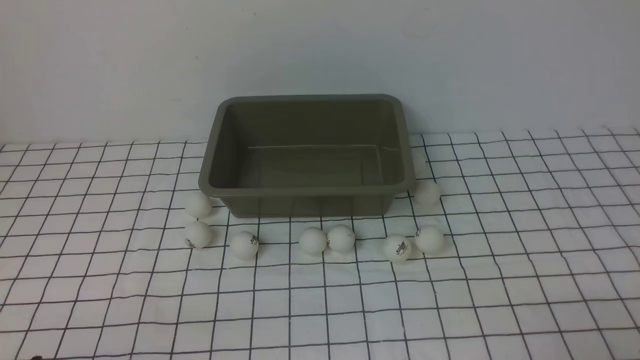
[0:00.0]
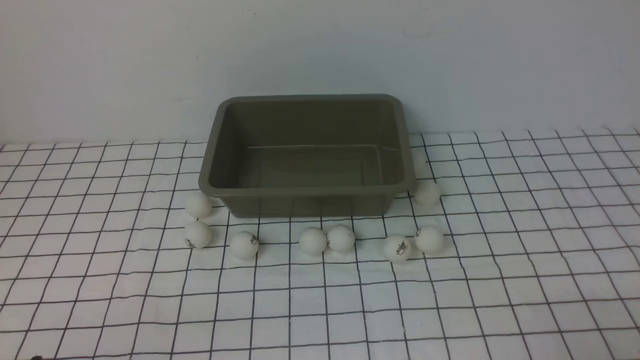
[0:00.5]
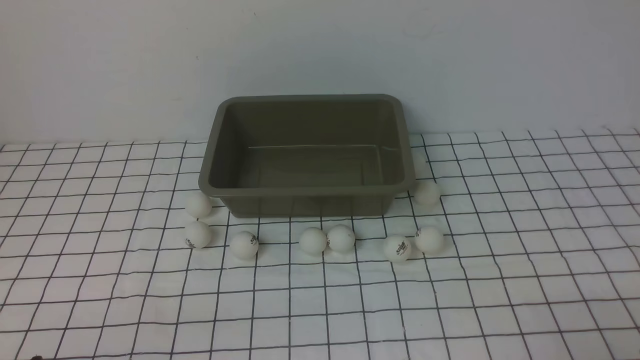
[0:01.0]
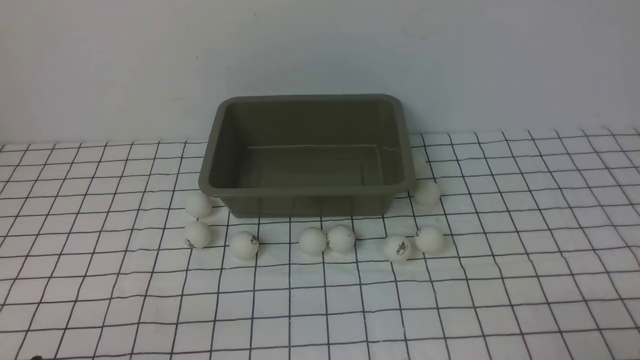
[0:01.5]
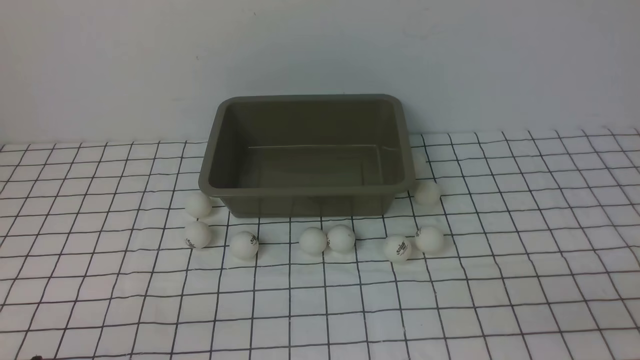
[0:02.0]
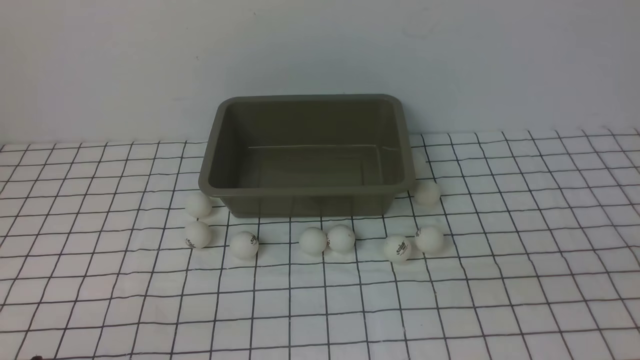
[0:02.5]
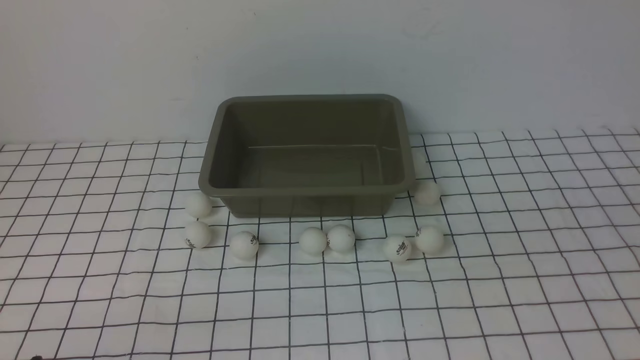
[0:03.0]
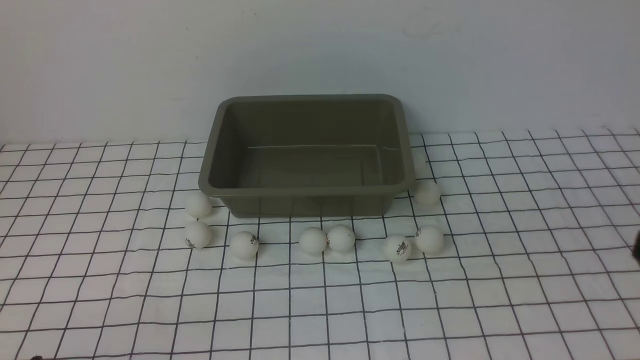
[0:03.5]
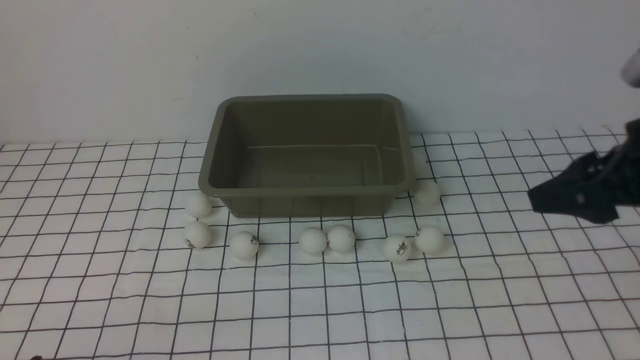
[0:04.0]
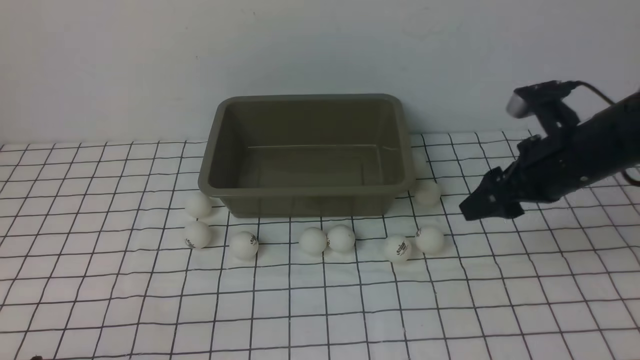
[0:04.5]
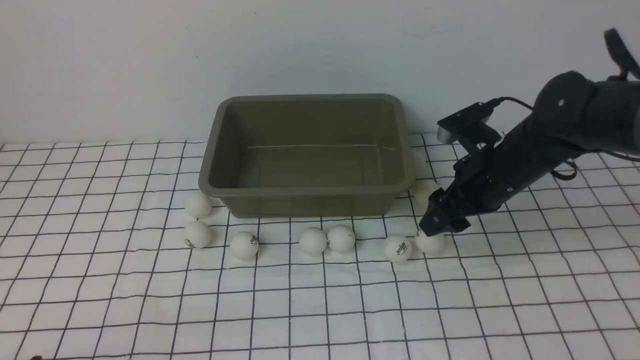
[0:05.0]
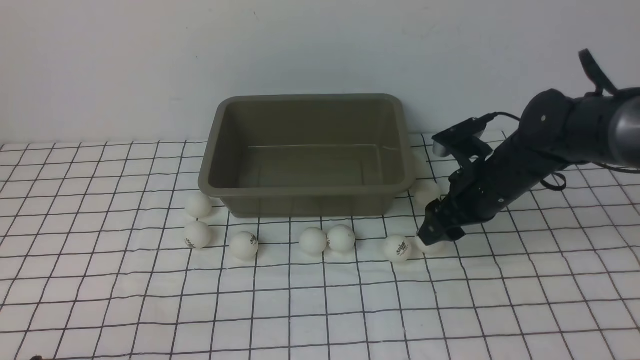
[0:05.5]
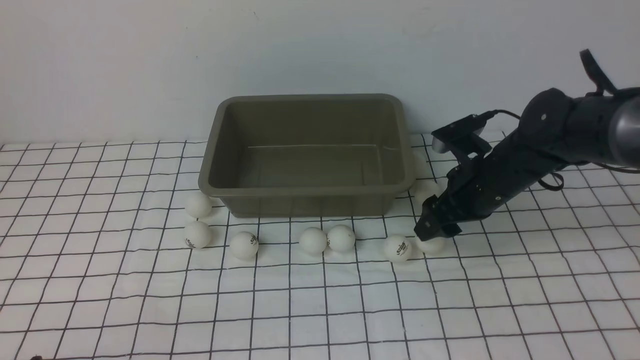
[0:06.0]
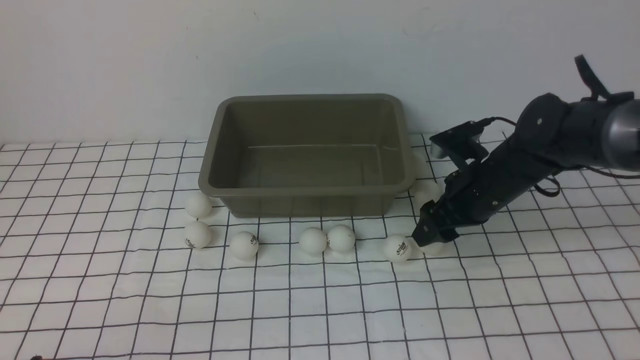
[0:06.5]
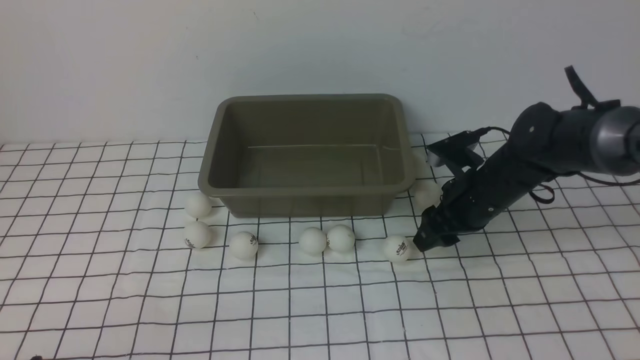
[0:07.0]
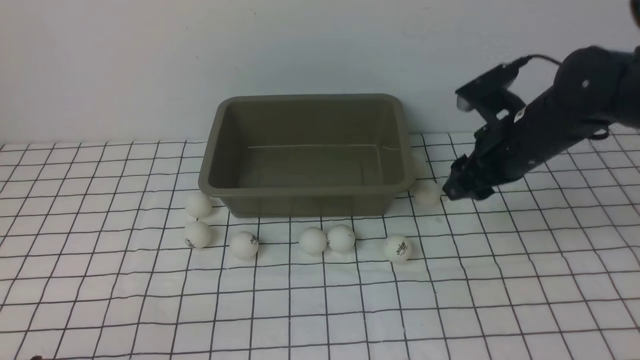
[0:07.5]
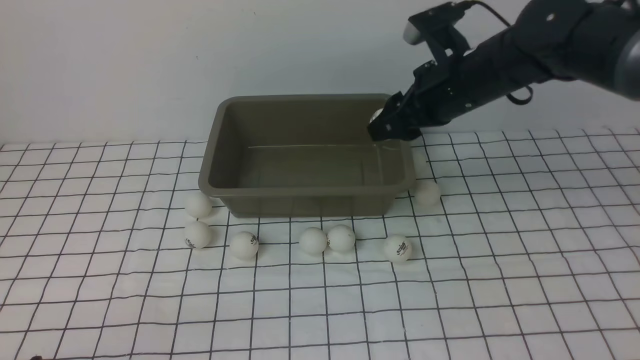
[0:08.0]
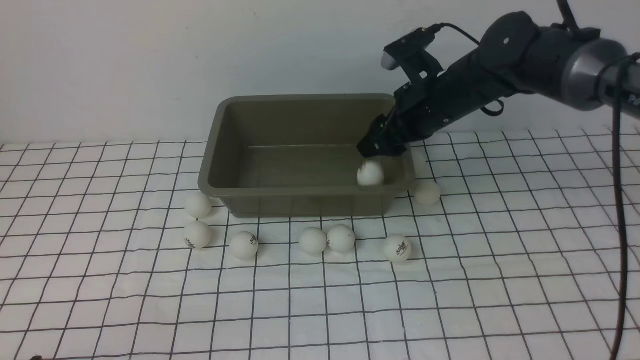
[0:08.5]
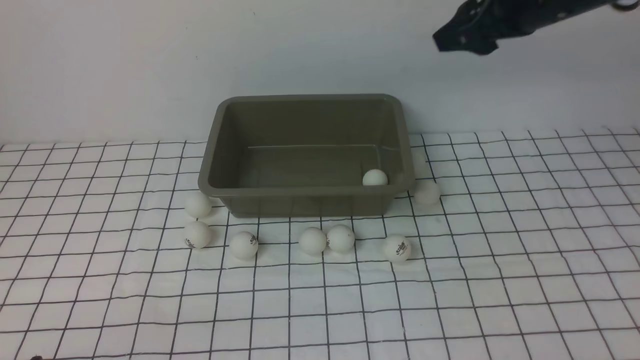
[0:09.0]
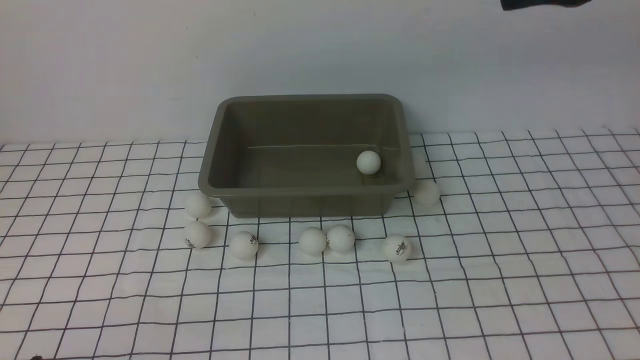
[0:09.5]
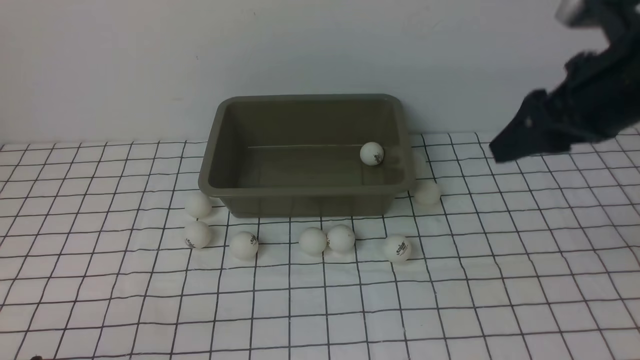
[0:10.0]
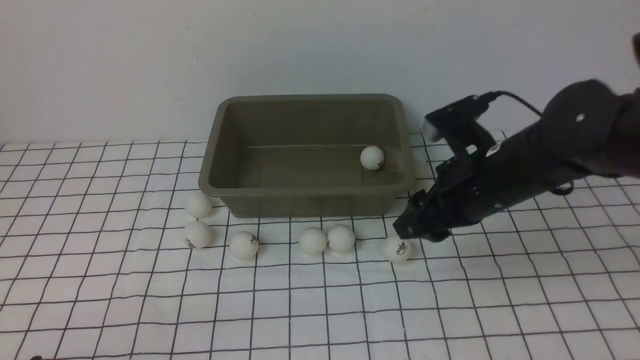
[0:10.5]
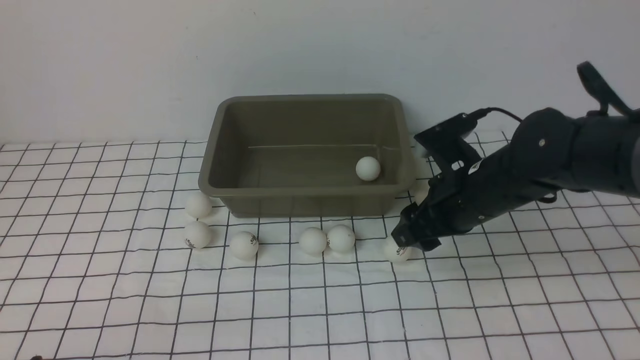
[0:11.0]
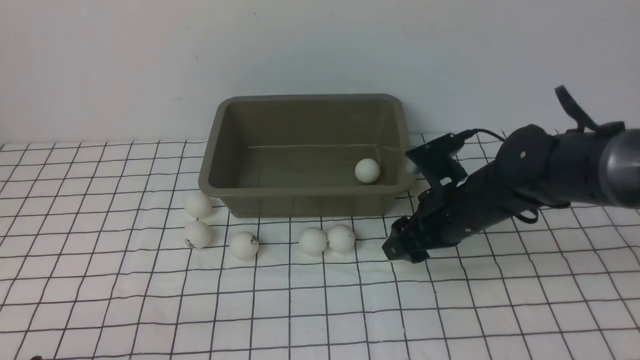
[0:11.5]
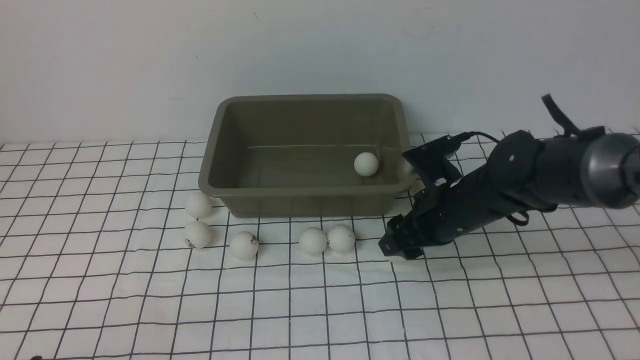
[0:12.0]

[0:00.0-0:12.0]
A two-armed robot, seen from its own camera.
Step, 0:00.0 to 0:07.0: use the right arm to clamp the table tennis ball closest to it.
Step, 0:08.0 to 0:08.5: use the right arm to put the table tennis ball into the box.
0:02.0 to 0:04.0: The right gripper moves forward and upward, roughly 20 cm.
0:04.0 to 0:06.0: The right gripper is displaced downward, forward and to the left by about 20 cm.
0:06.0 to 0:08.0: The right gripper moves upward, about 10 cm, and closes.
0:08.0 to 0:10.0: The right gripper heads backward and to the right, covering some 15 cm, moves approximately 15 cm upward and comes back, and opens, then closes again.
0:10.0 to 0:12.0: The right gripper shifts about 20 cm downward and to the left, and opens up.

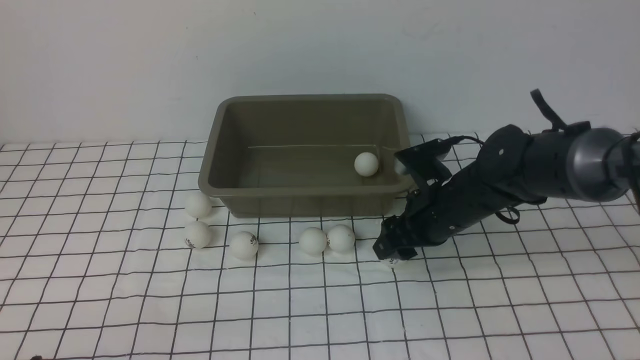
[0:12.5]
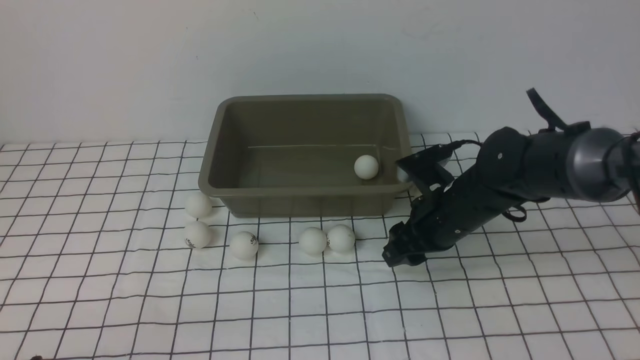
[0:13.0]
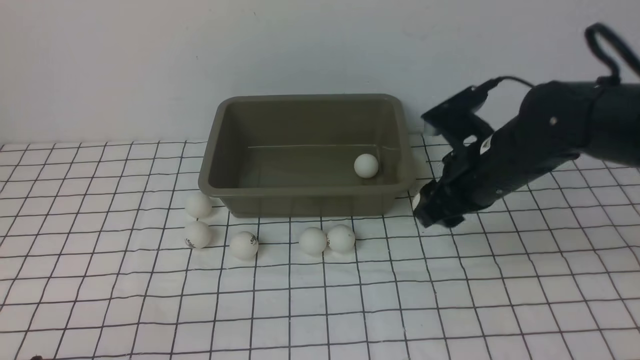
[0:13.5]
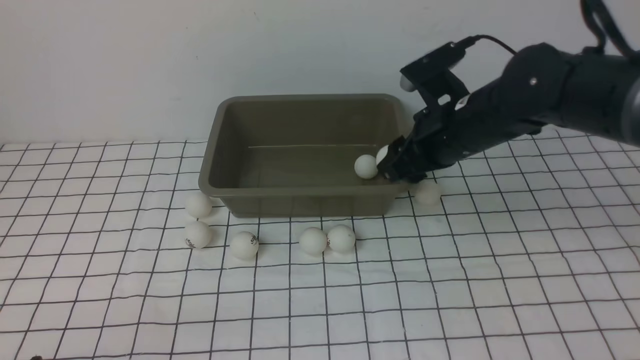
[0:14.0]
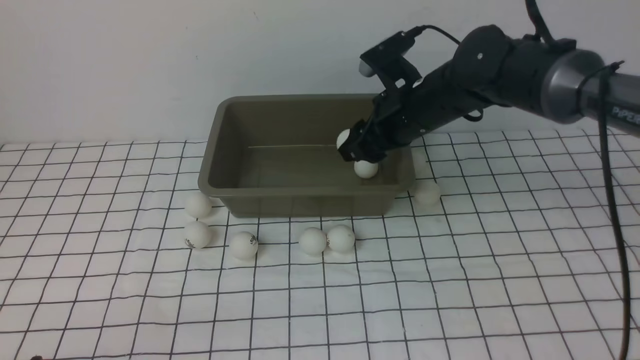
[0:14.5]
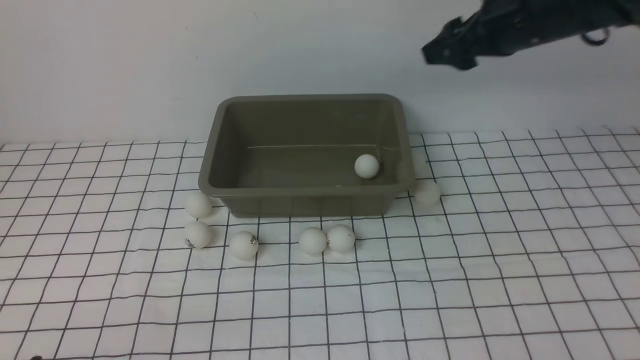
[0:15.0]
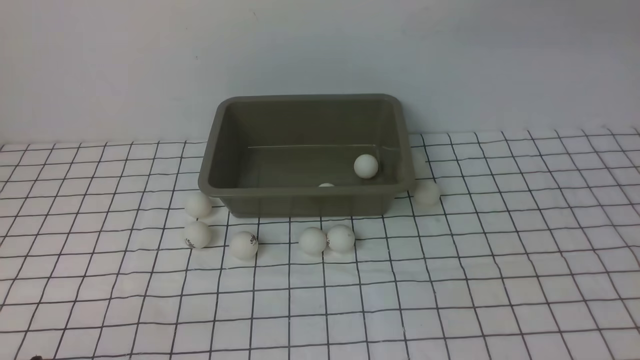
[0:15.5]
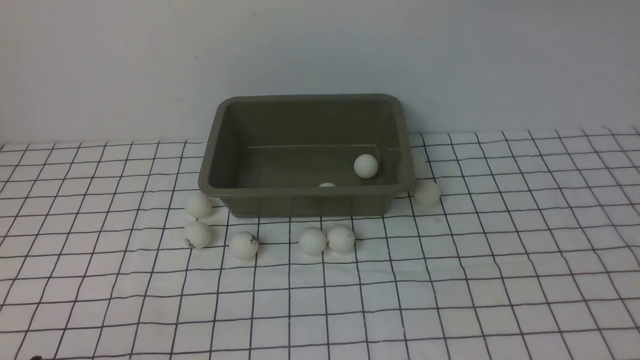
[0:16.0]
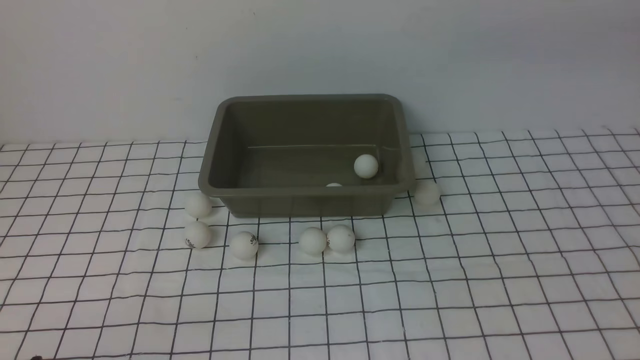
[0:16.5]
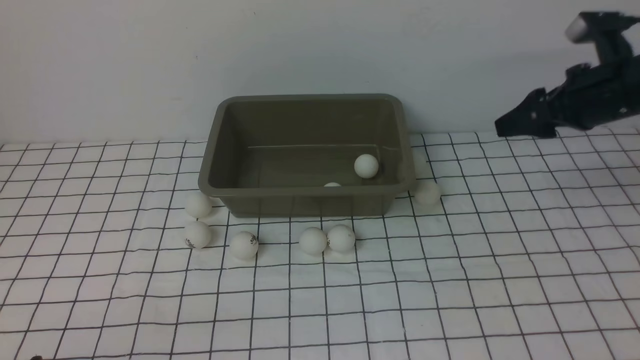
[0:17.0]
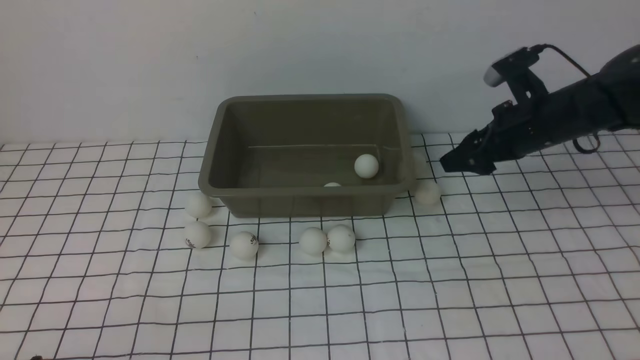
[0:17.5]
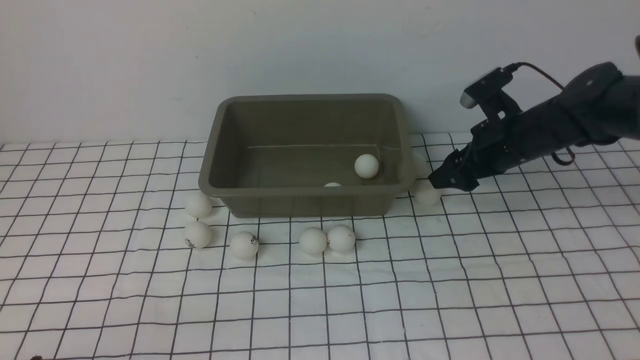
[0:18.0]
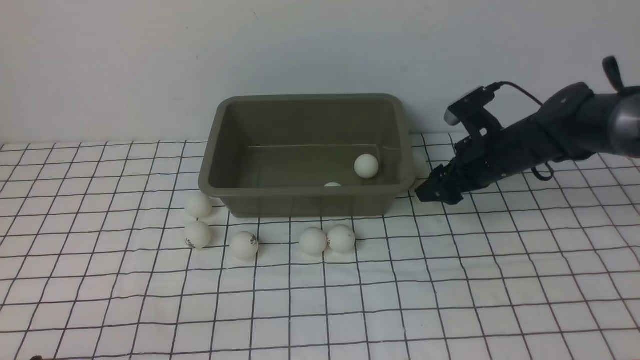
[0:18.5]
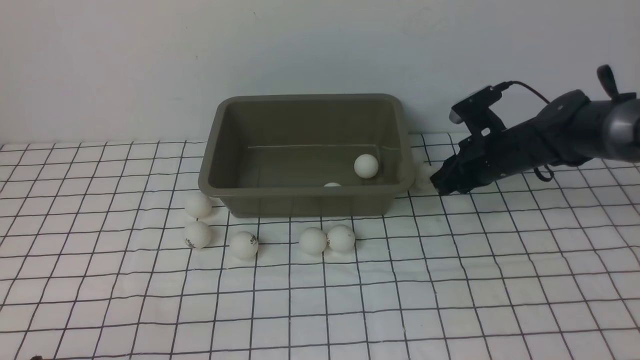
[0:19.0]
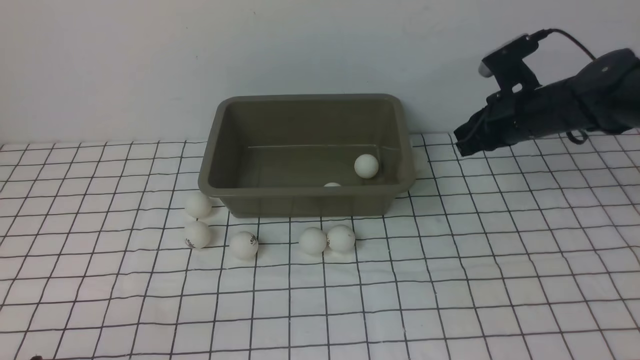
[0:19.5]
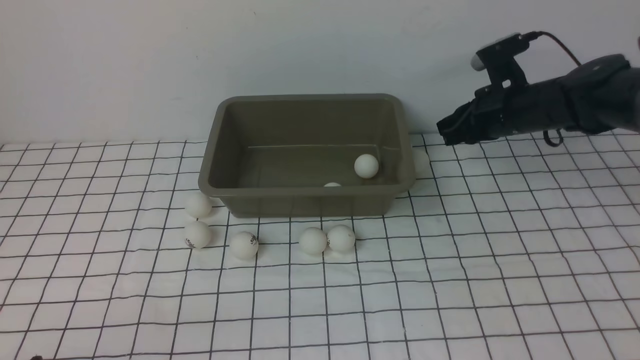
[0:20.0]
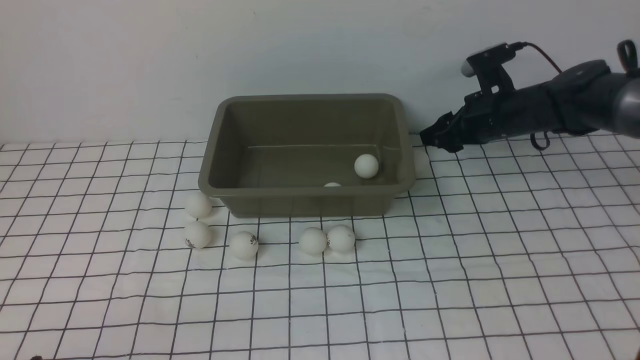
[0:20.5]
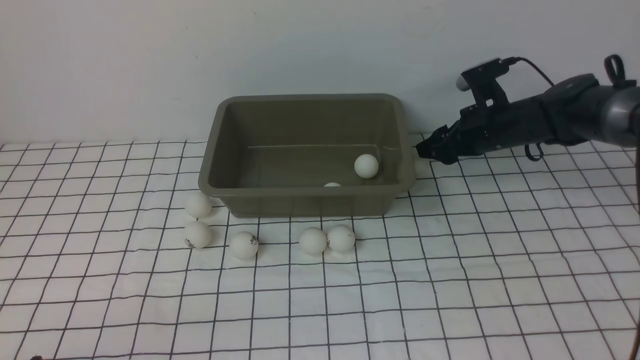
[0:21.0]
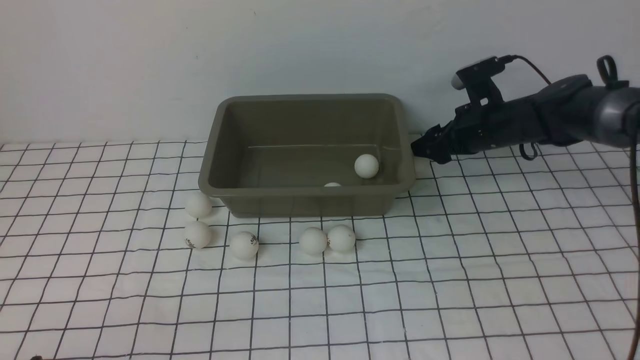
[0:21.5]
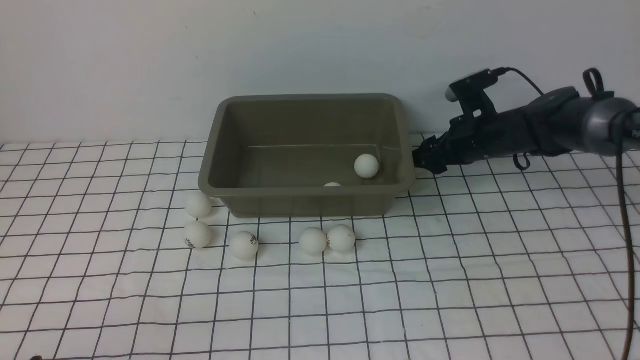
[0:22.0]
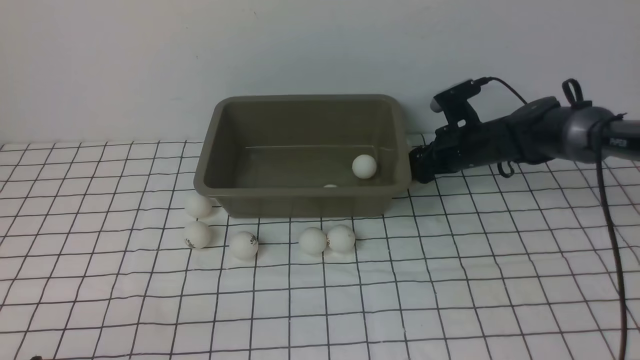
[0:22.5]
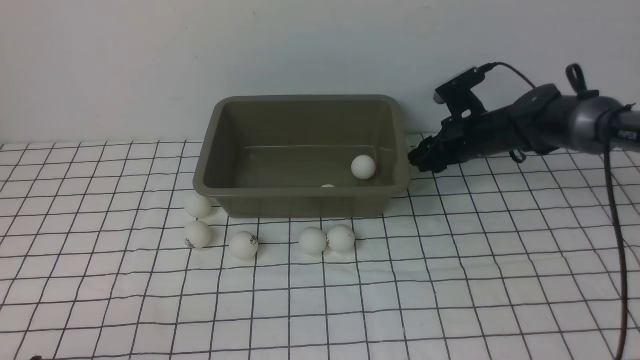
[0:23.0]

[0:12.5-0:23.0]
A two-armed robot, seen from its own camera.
Step, 0:14.0 to 0:14.5: use the right arm to put the table tennis ball into the box.
0:12.5 to 0:14.5: The right gripper heads upward and forward, covering about 10 cm, and closes, then reopens.
0:14.5 to 0:16.5: The right gripper travels to the right, upward and backward by roughly 30 cm, and opens its fingers.
0:16.5 to 0:19.0: The right gripper travels downward and forward by about 30 cm, and closes.
0:19.0 to 0:21.0: The right gripper opens its fingers.
0:21.0 to 0:23.0: The right gripper closes up.
